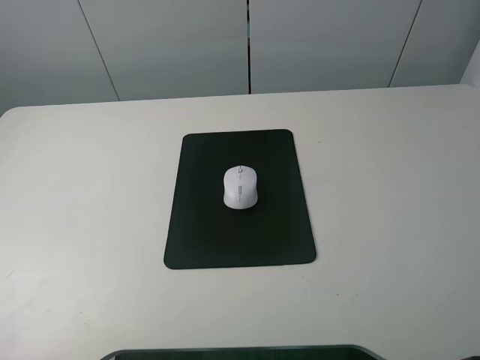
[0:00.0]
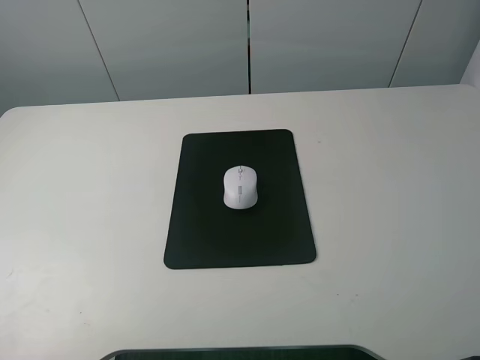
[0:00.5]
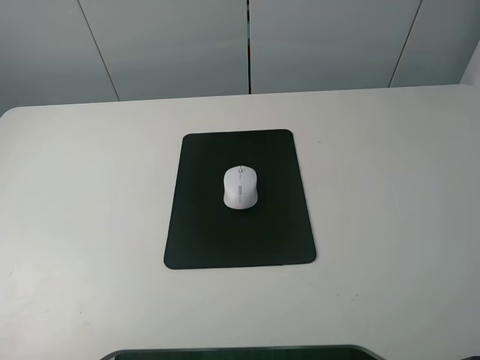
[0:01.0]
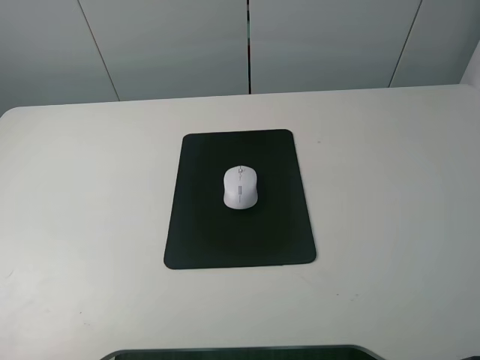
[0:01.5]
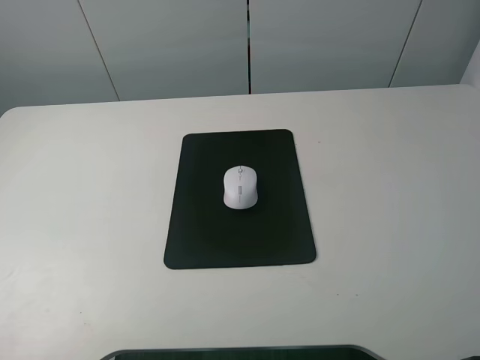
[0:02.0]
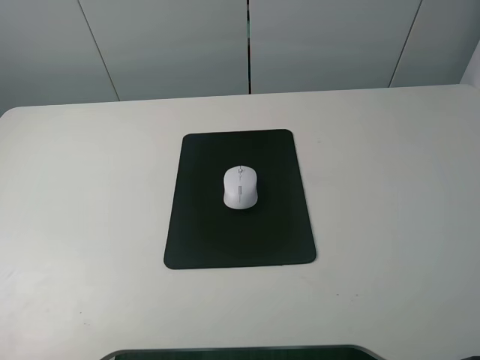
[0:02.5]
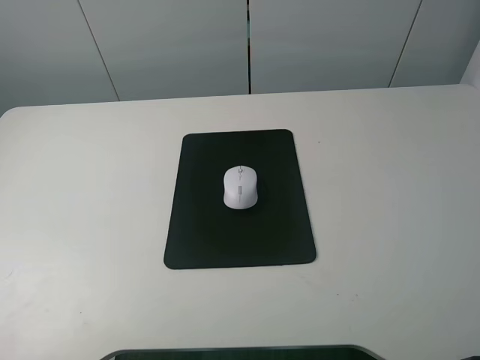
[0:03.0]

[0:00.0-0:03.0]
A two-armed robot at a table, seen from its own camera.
0:01.5 to 0:03.0: Both grippers stay about where they are.
